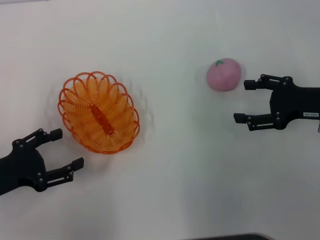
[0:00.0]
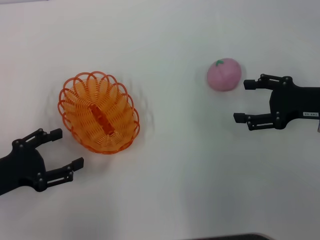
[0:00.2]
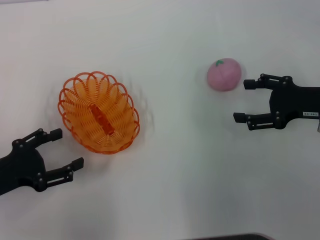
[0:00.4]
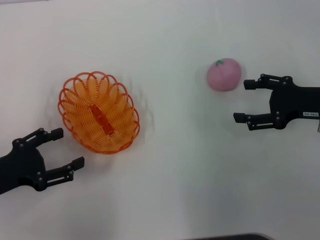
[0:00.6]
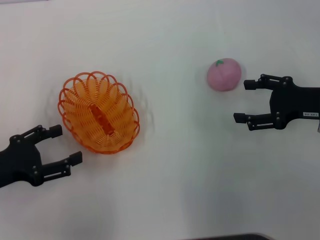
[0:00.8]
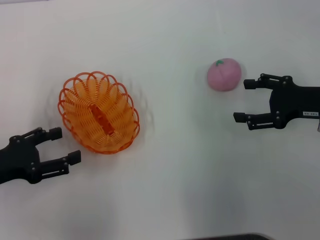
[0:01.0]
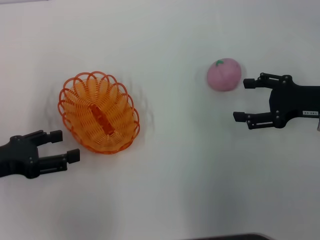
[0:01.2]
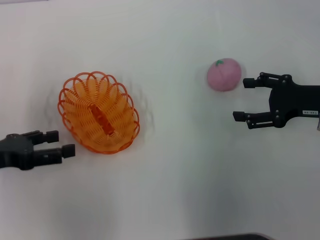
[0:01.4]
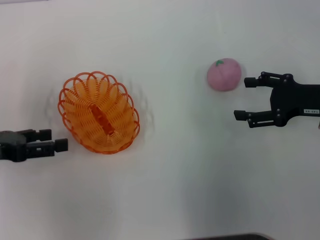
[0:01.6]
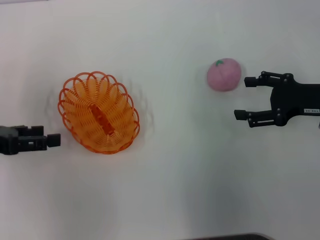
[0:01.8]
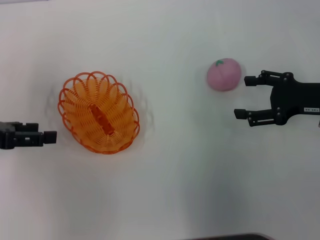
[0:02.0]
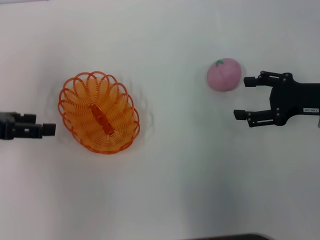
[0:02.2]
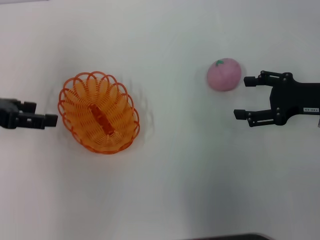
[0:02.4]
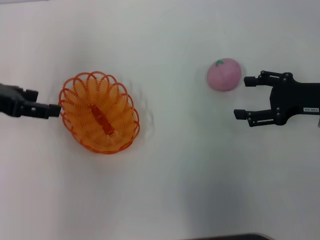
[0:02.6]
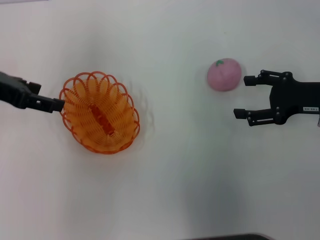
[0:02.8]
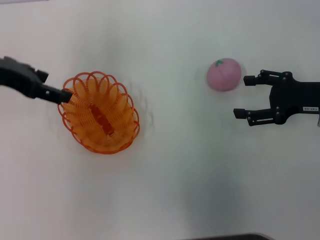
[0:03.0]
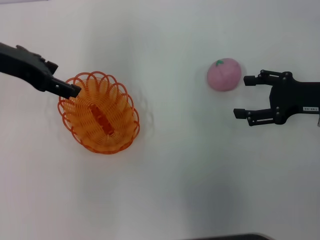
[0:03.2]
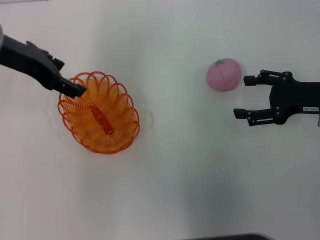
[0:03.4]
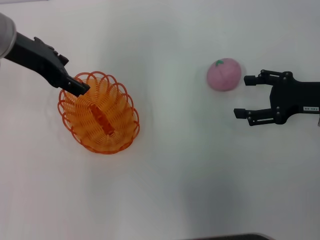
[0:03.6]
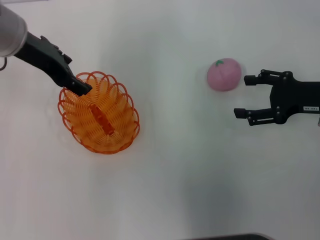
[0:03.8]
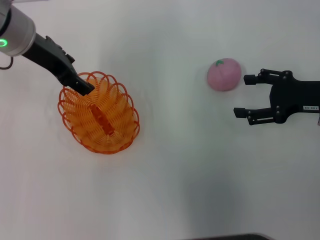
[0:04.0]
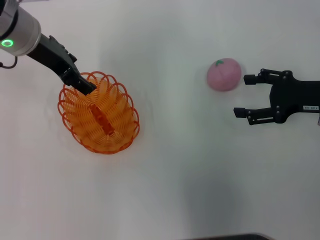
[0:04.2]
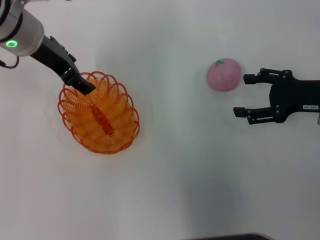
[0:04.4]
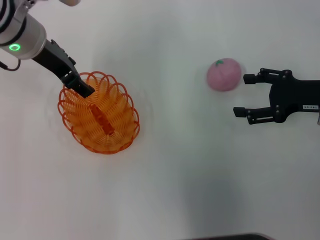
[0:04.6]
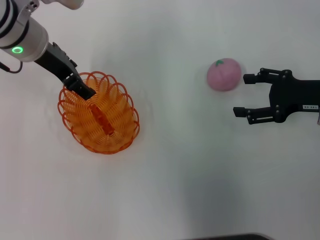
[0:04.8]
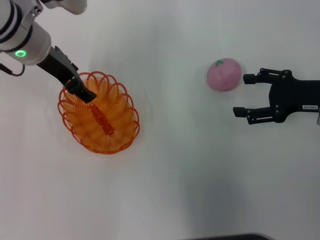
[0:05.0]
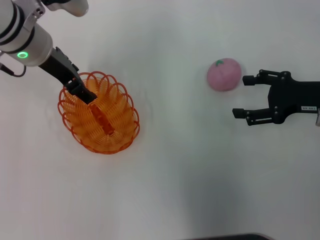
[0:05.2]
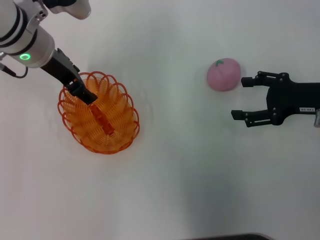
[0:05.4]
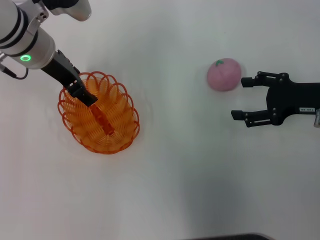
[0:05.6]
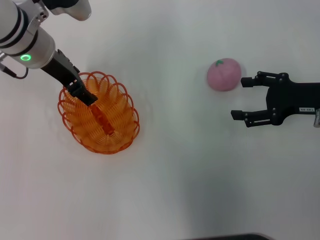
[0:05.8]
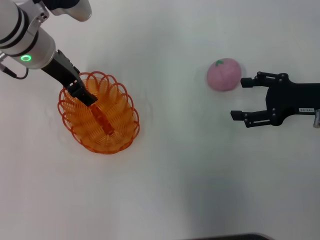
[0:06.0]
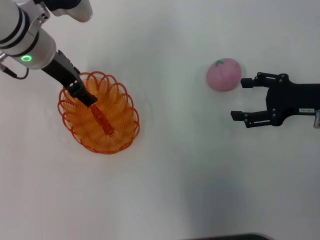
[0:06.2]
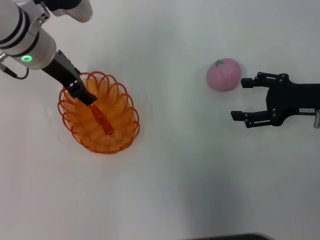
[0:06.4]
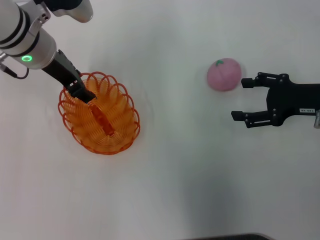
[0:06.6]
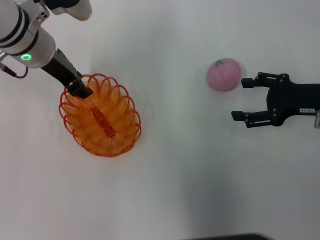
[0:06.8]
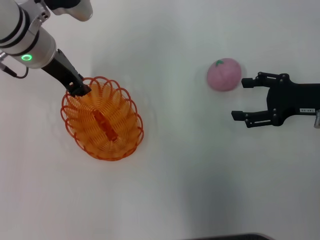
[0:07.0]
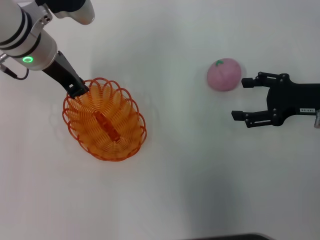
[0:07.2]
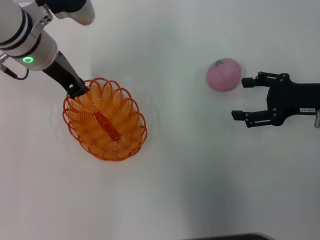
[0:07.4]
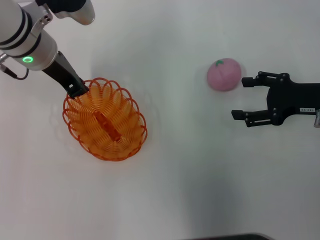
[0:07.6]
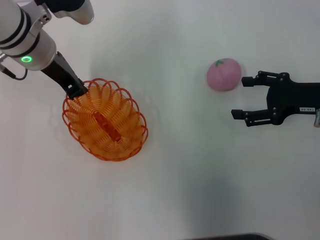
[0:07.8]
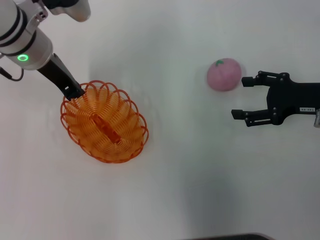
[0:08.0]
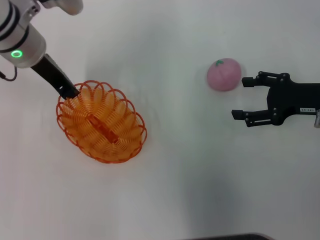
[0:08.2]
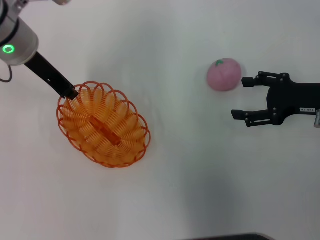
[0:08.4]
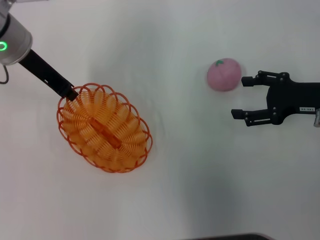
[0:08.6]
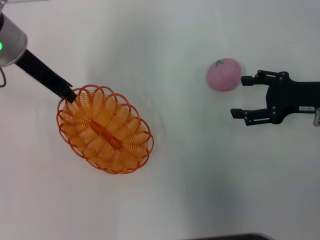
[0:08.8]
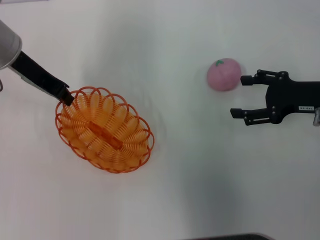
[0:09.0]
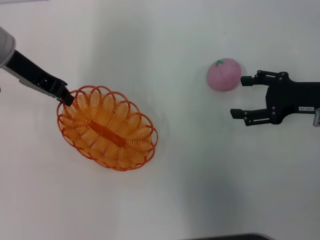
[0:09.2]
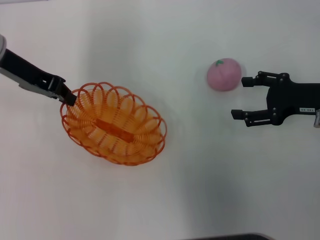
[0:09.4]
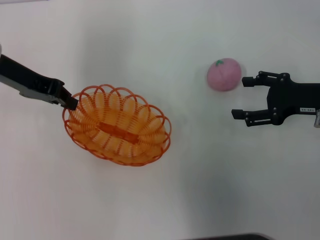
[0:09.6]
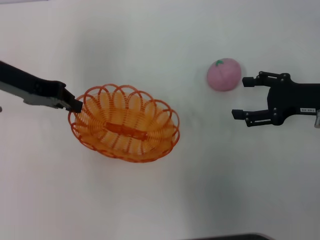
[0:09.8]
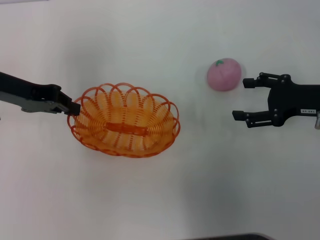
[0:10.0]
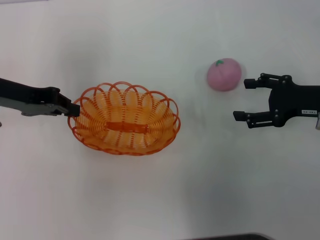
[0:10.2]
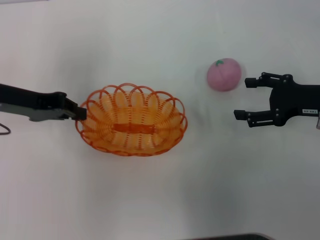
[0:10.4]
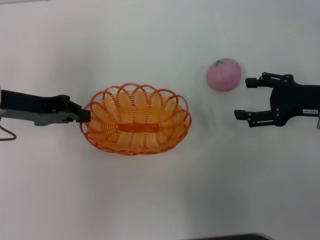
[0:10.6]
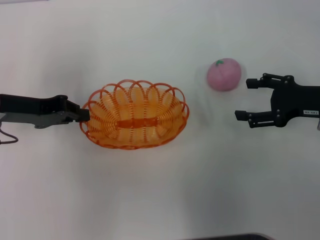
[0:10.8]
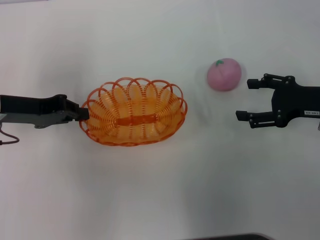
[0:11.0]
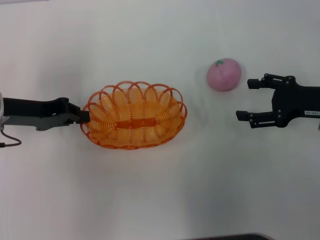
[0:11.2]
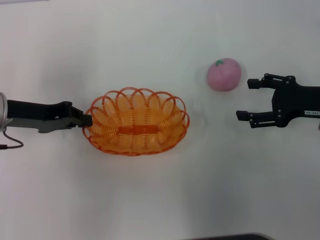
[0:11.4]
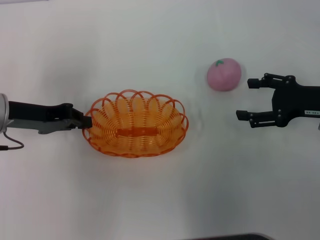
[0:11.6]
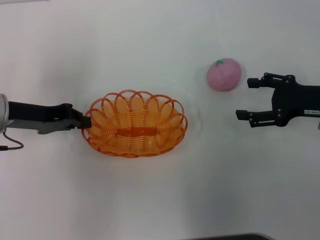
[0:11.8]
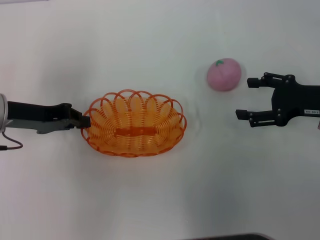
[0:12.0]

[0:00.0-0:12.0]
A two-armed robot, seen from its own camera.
Step, 0:00.0 to 0:08.6: Pick up the basket with the left gripper.
0:00.0 to 0:01.6: The left gripper moves forward, some 5 cm.
0:01.6 to 0:03.0: The left gripper shifts some 15 cm upward, forward and to the right.
0:03.0 to 0:04.4: The left gripper moves to the right, about 10 cm.
0:04.4 to 0:06.0: The grippers stay close to where they were, moving slightly.
0:06.0 to 0:07.6: The left gripper closes its fingers.
0:07.6 to 0:09.0: The left gripper shifts by roughly 5 cm.
0:09.0 to 0:10.4: The left gripper goes roughly 10 cm backward and to the left.
0:10.4 to 0:12.0: The grippers stay close to where they were, moving slightly.

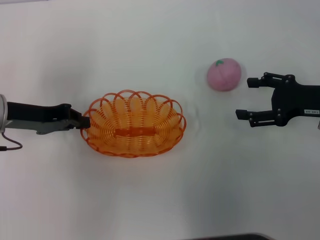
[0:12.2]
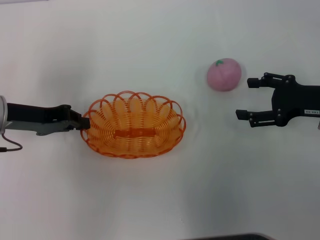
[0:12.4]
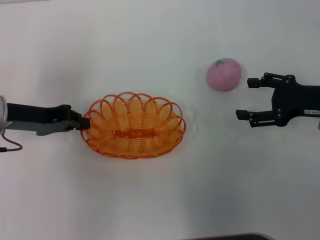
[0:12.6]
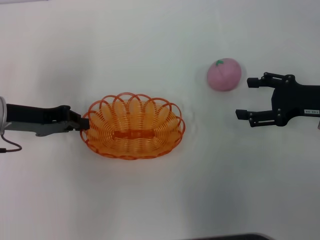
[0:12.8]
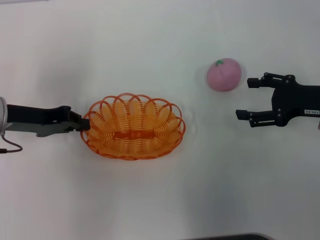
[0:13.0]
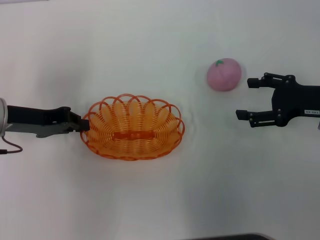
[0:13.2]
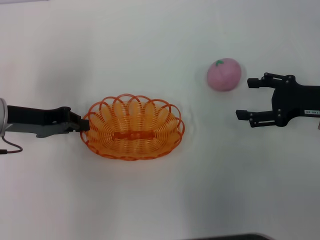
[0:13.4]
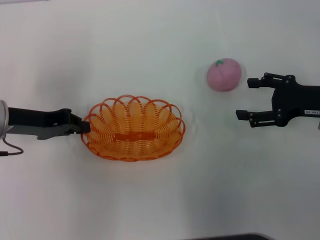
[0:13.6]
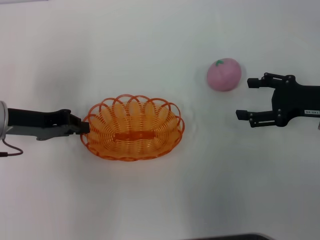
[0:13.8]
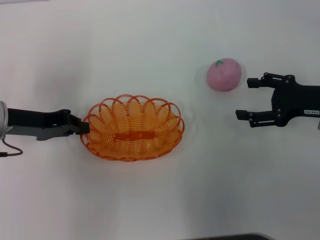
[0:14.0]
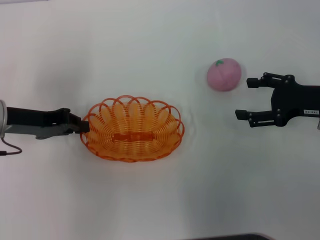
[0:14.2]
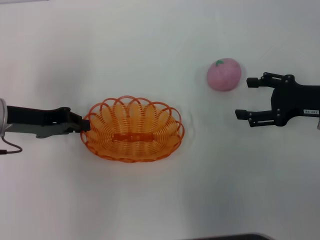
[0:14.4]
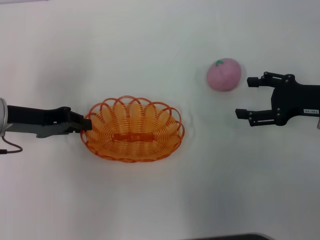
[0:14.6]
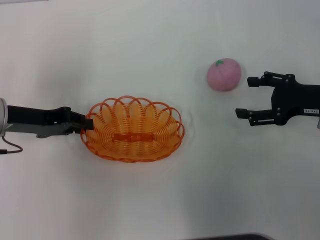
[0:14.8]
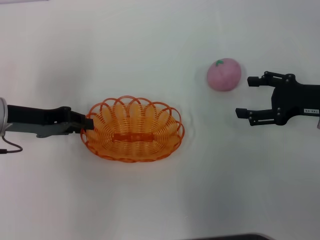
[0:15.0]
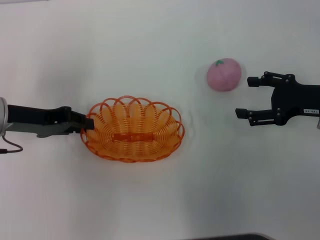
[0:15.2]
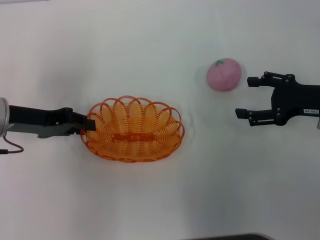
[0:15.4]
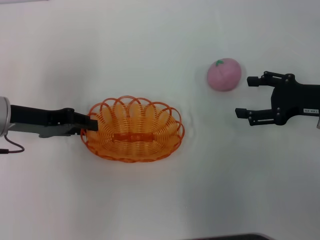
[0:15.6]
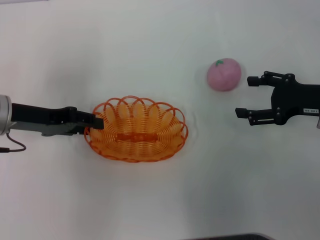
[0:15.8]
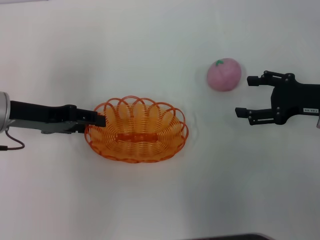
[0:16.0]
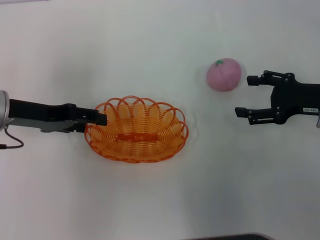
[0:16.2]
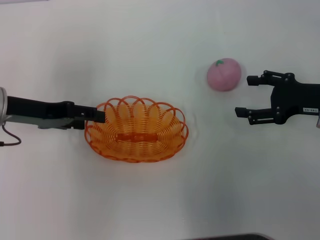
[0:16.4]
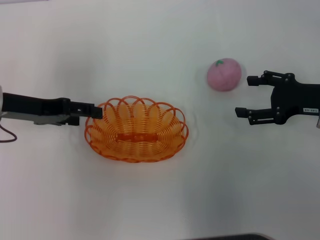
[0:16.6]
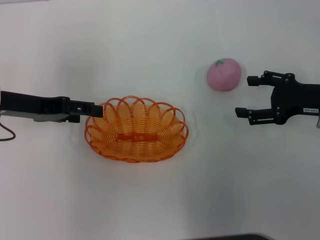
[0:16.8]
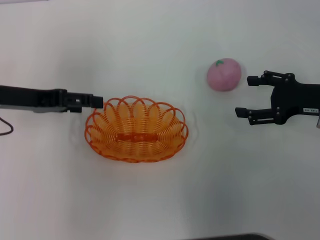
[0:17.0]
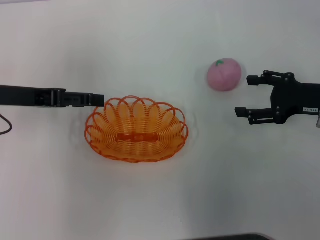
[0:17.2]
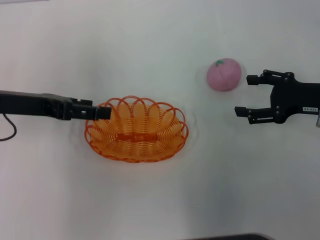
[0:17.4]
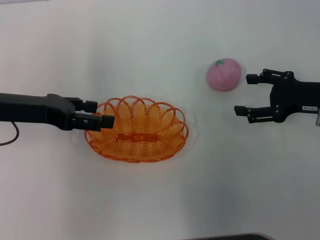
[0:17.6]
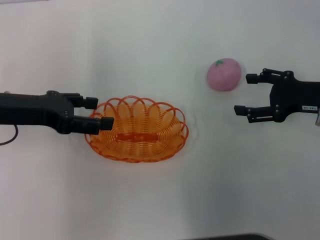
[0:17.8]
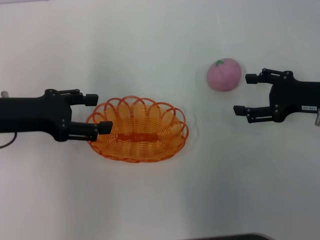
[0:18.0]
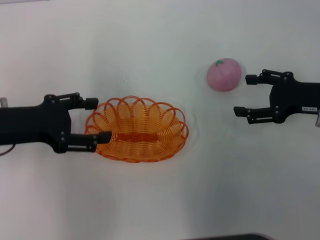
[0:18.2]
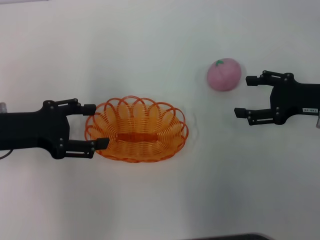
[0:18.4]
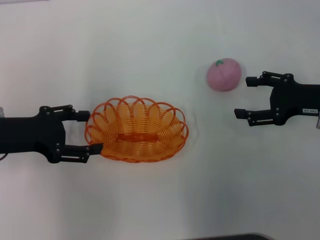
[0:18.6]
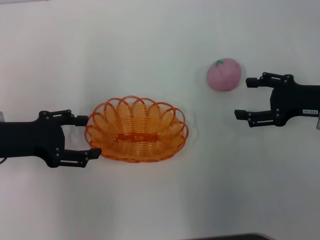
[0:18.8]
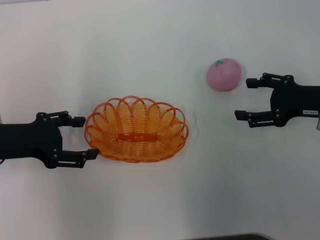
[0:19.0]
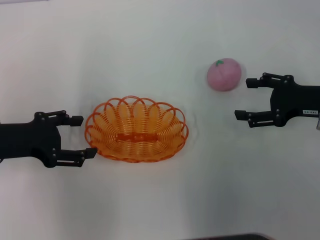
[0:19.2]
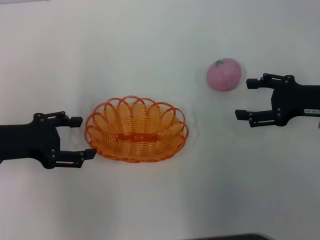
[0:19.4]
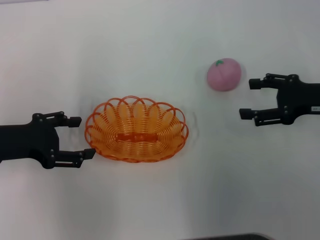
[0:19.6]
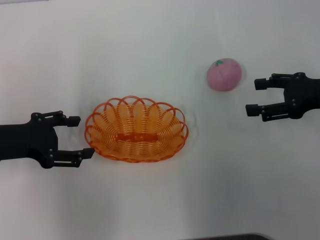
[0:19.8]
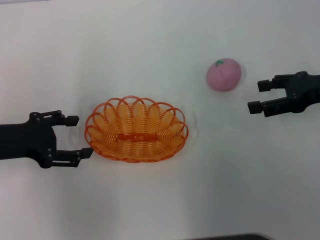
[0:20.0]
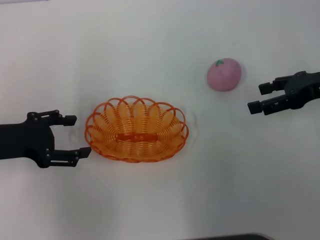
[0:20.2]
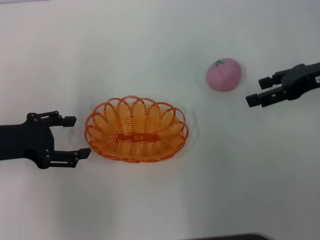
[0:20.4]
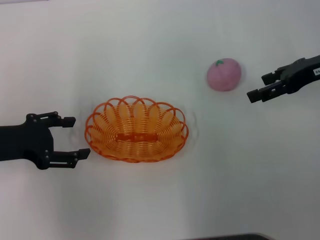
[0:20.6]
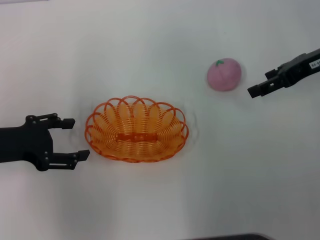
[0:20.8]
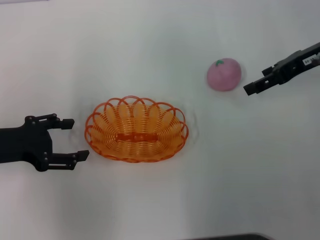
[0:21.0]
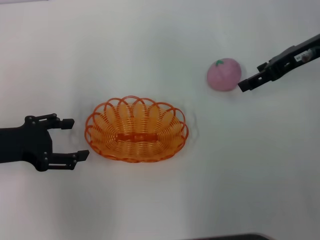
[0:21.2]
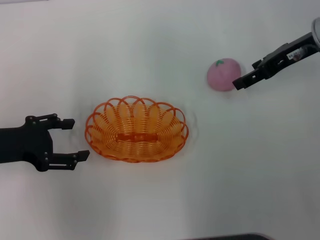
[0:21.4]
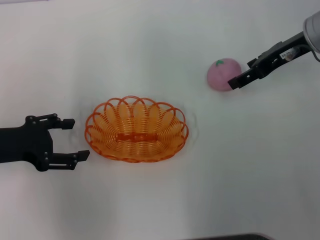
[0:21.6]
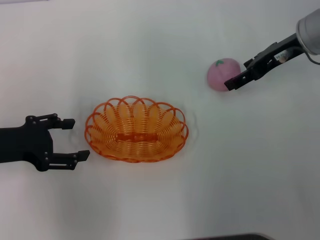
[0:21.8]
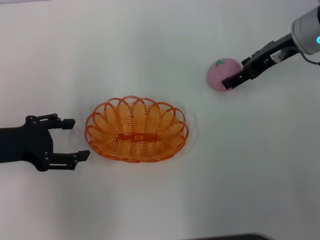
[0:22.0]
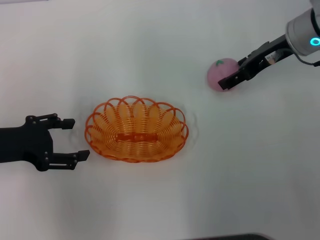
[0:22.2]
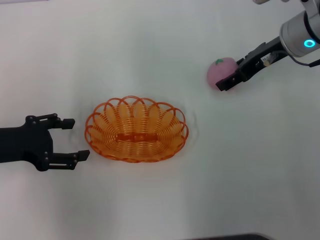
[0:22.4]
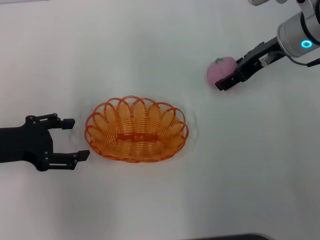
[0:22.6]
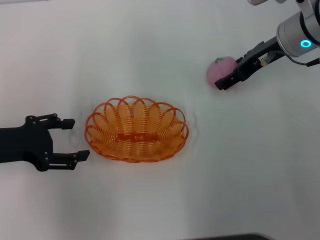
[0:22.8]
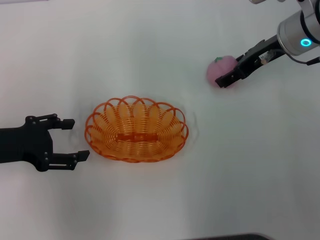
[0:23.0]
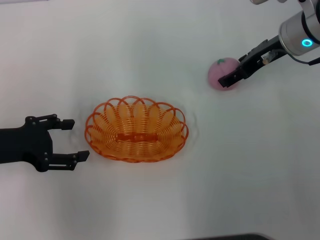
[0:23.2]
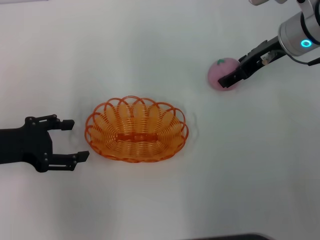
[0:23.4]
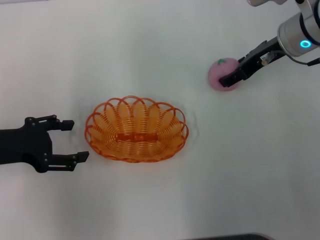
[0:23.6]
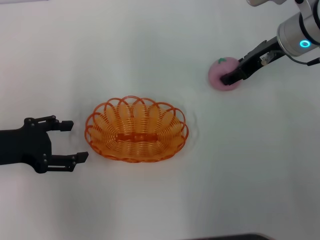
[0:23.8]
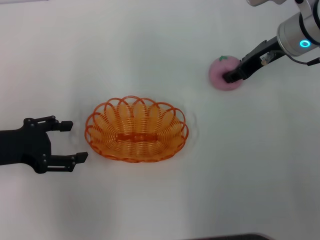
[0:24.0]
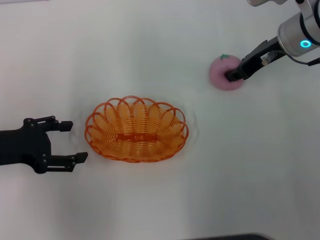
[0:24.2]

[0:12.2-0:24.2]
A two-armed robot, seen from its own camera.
Step, 0:12.2 to 0:19.2: Place the basket in the center of view with the left gripper.
0:12.2 to 0:15.2: Both grippers stay about where they are.
0:15.2 to 0:16.6: The left gripper opens its fingers.
0:18.2 to 0:19.8: The grippers stay close to where they were, moving slightly.
0:19.8 to 0:21.2: The right gripper travels forward, to the left and upward by some 10 cm.
0:21.2 to 0:22.6: The right gripper shifts some 5 cm to the left.
0:22.6 to 0:24.2: The right gripper closes up.
